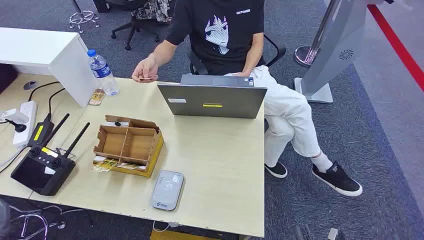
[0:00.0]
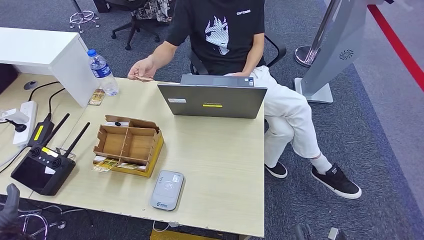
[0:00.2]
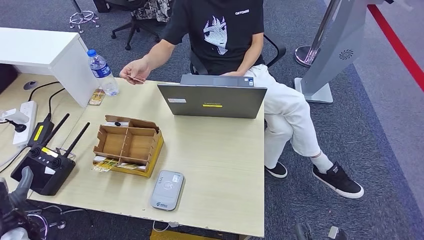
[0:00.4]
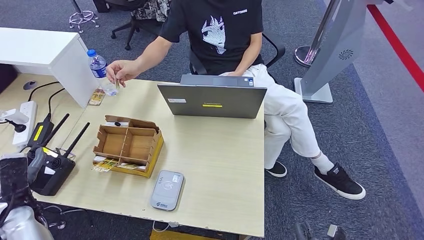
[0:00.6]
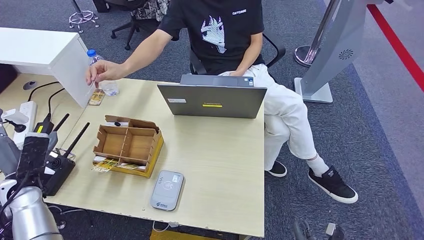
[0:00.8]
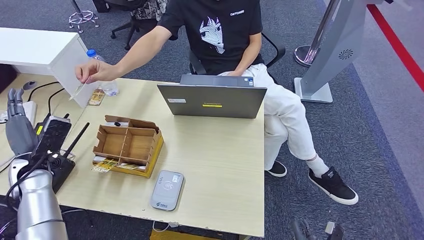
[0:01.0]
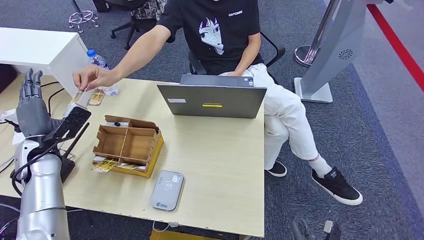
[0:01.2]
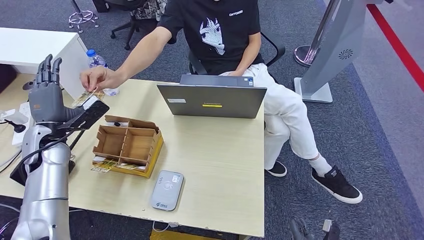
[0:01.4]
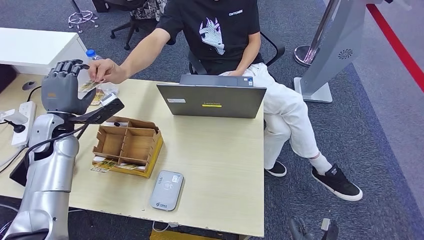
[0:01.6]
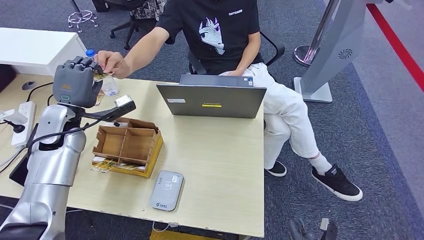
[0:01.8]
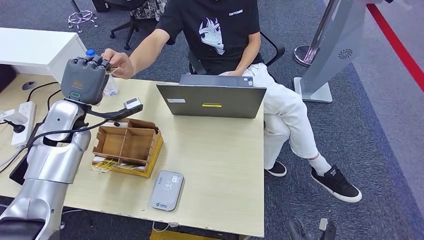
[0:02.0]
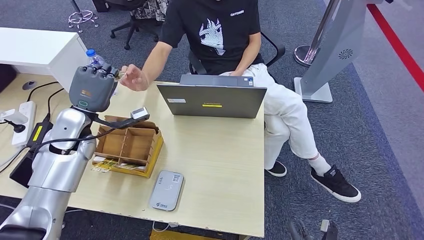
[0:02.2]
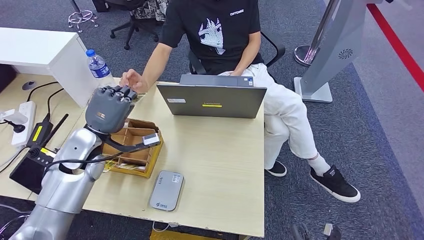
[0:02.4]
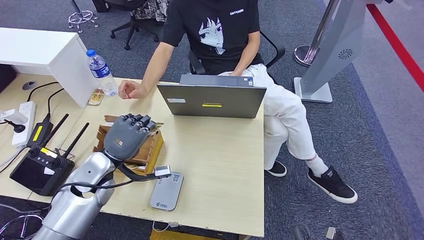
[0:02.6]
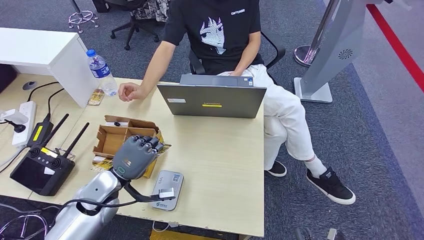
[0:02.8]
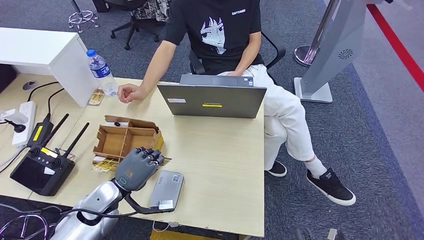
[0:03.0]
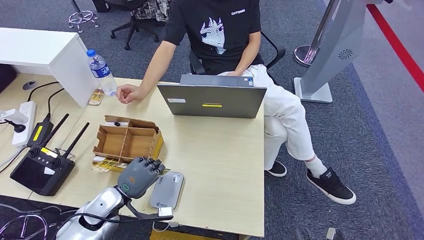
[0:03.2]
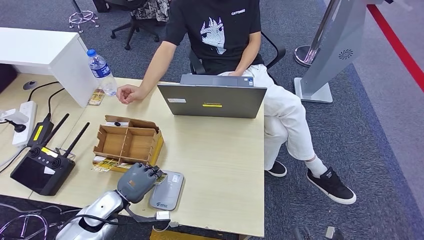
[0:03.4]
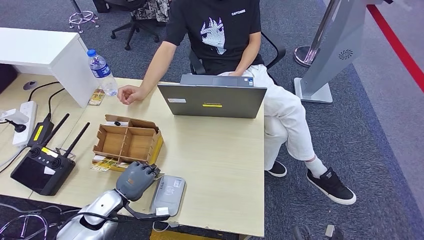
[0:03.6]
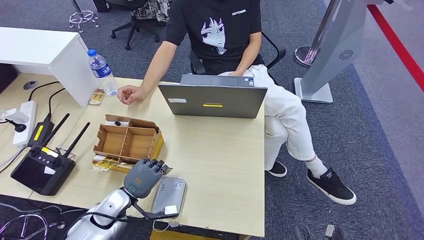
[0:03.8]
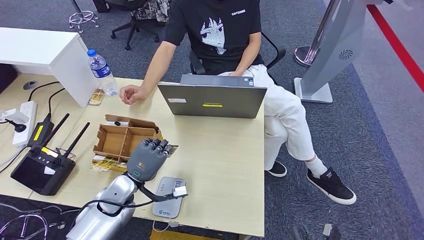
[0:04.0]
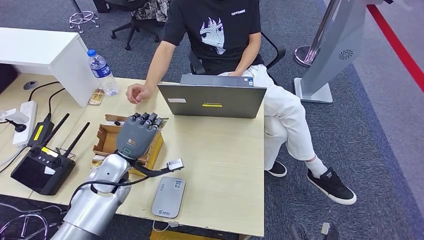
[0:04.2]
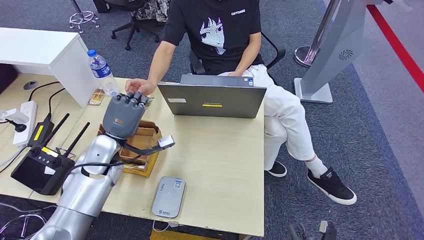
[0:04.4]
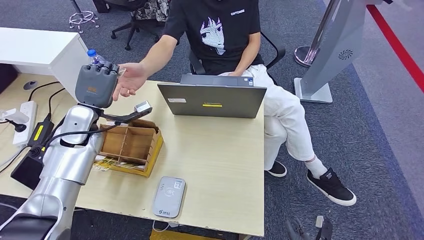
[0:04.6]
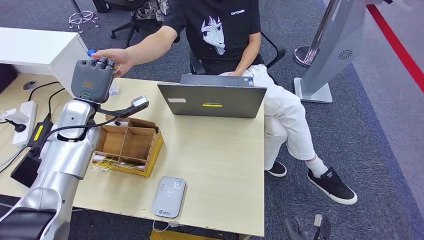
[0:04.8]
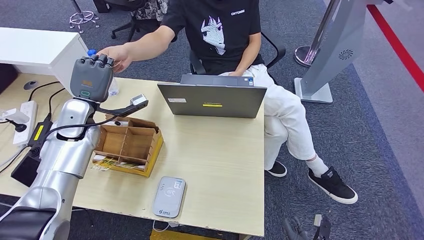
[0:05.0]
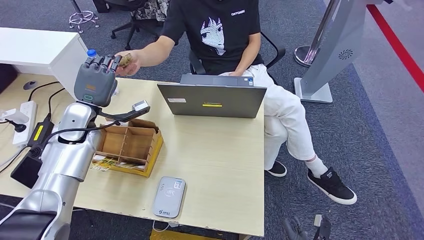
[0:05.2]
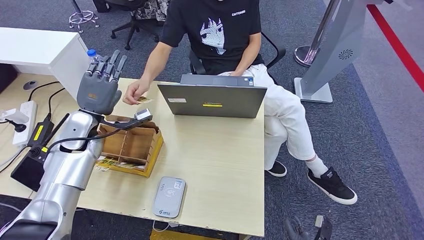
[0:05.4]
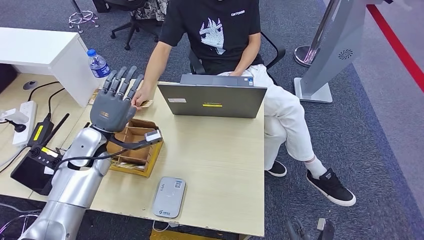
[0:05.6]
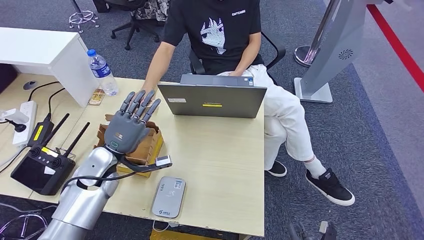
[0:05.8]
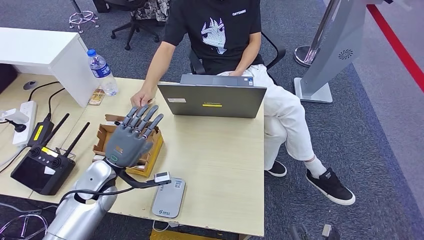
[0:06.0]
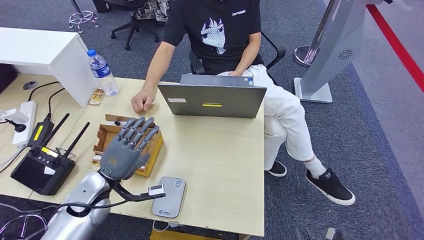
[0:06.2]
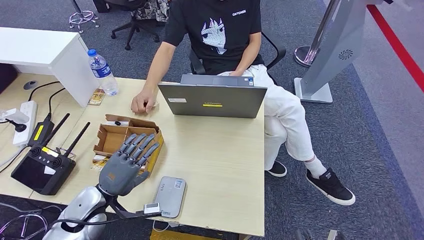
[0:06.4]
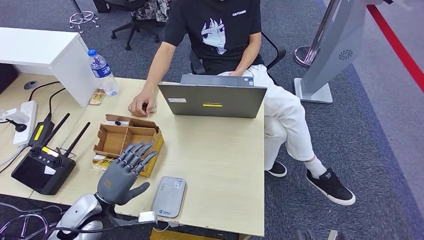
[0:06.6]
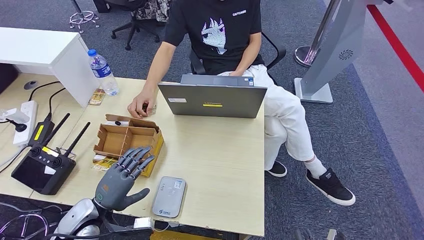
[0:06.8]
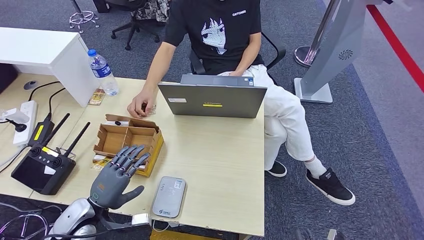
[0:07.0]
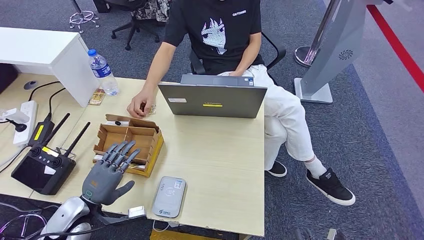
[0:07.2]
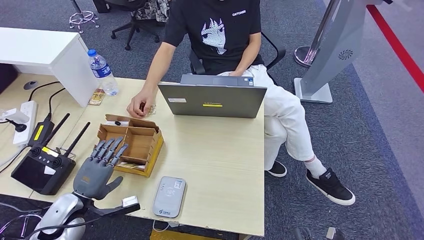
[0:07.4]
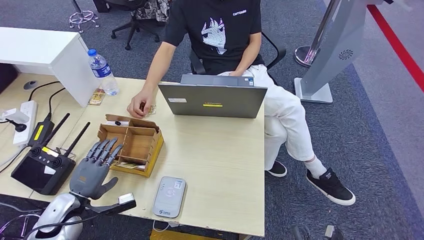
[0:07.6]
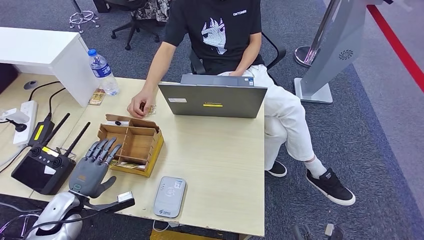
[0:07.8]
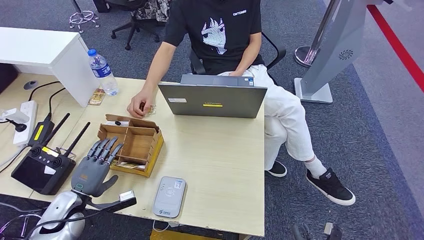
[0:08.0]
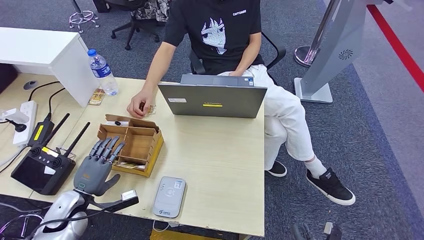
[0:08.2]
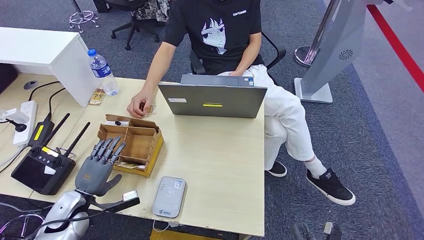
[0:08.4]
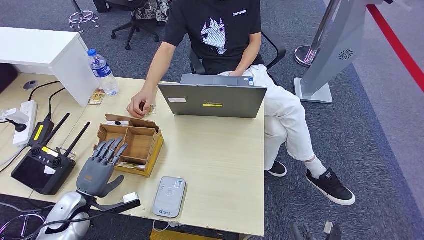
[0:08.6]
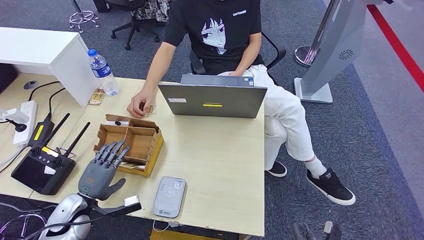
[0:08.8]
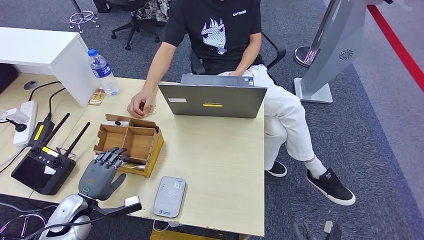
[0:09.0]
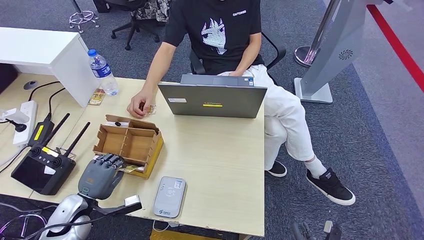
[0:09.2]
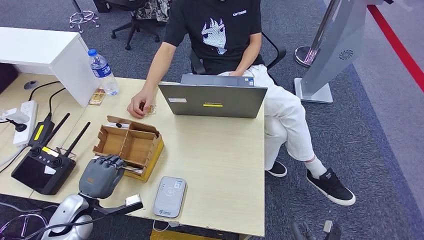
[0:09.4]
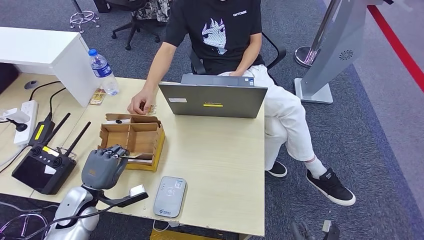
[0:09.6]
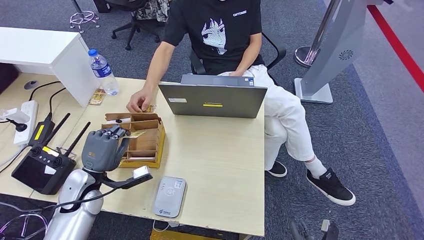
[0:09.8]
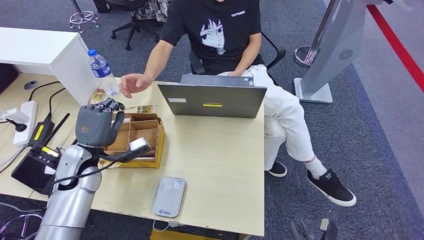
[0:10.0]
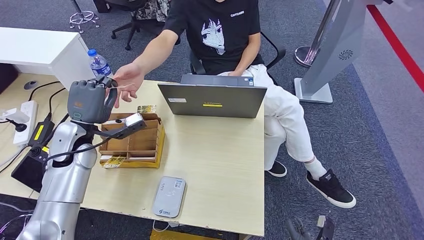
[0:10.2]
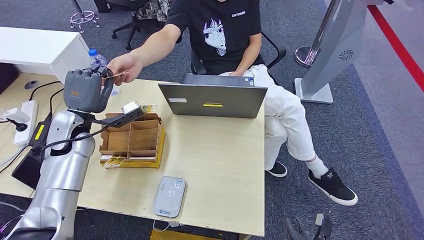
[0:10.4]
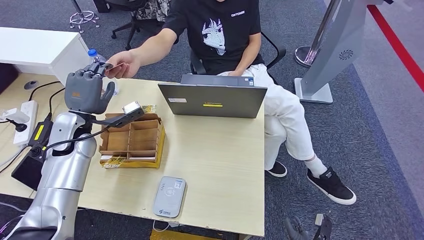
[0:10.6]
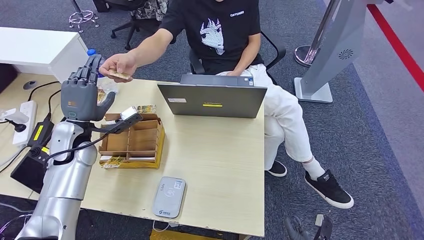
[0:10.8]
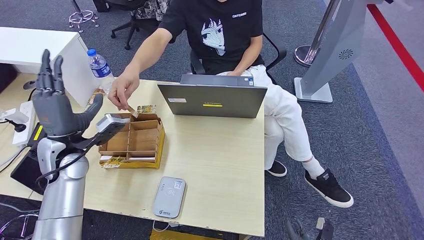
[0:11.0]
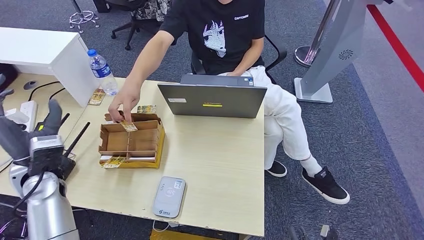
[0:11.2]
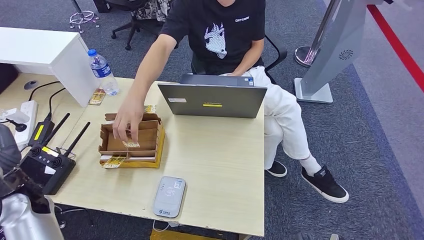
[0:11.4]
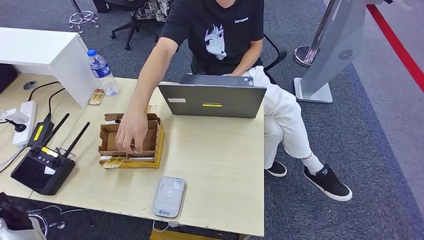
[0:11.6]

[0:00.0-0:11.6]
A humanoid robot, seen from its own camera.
Step, 0:00.0 to 0:02.8: Take the ID card from the person's hand.
Step, 0:03.2 to 0:04.6: Place the ID card on the card reader.
Step, 0:04.8 to 0:06.2: Hand the ID card to the person.
Step, 0:07.6 to 0:09.8: Pick up the room key from the key card box.
Step, 0:10.0 to 0:11.6: Hand the room key to the person.
0:01.4 to 0:02.8: The left hand shifts about 20 cm to the right, downward and backward.
0:02.8 to 0:04.4: The left hand travels forward and upward by about 10 cm.
0:05.8 to 0:07.2: The left hand goes some 15 cm backward, downward and to the left.
0:07.2 to 0:08.8: The left hand ends up some 5 cm from where it was.
0:08.8 to 0:10.2: The left hand moves upward and forward, some 20 cm.
0:10.2 to 0:11.6: The left hand goes roughly 20 cm backward, to the left and downward, while the right hand shifts approximately 5 cm backward.
